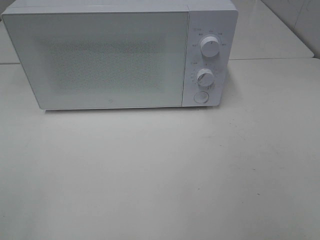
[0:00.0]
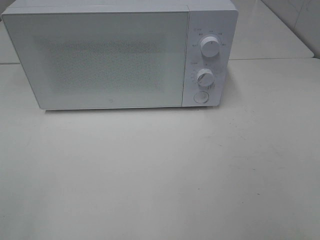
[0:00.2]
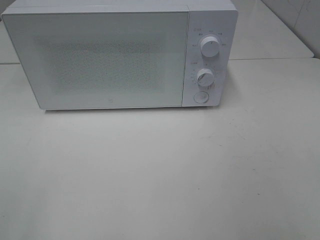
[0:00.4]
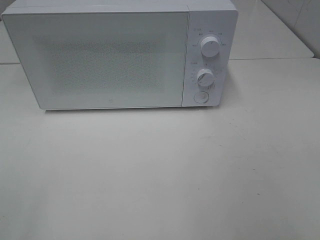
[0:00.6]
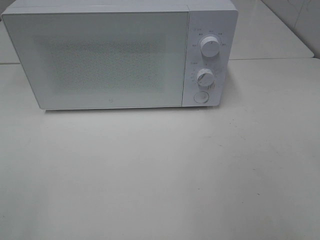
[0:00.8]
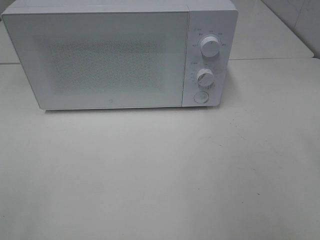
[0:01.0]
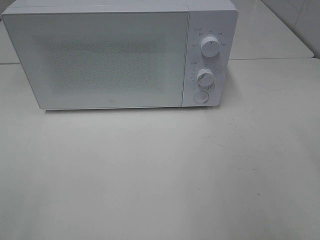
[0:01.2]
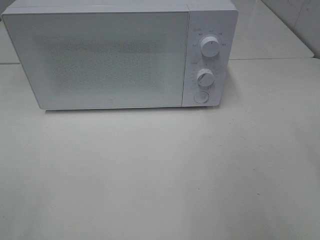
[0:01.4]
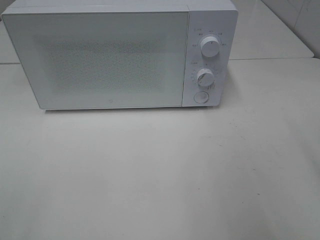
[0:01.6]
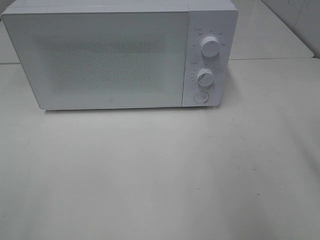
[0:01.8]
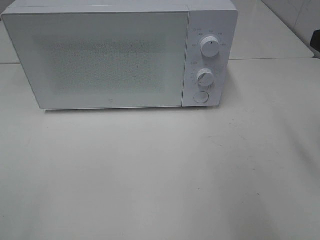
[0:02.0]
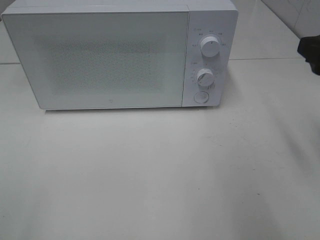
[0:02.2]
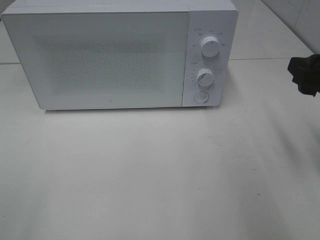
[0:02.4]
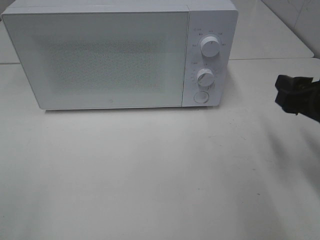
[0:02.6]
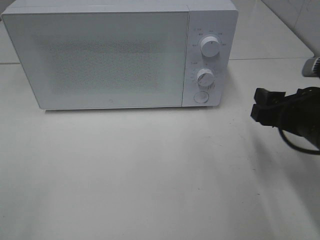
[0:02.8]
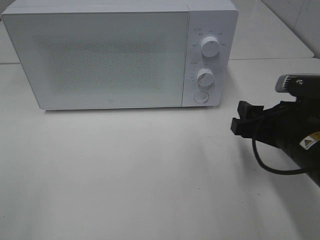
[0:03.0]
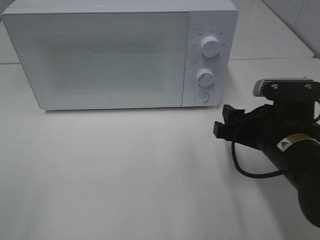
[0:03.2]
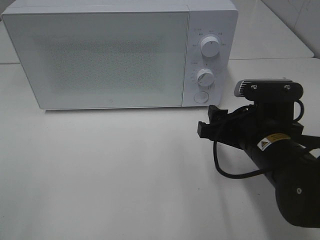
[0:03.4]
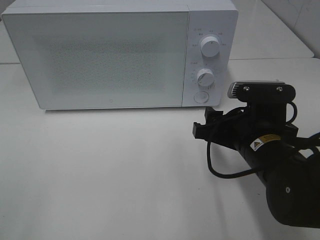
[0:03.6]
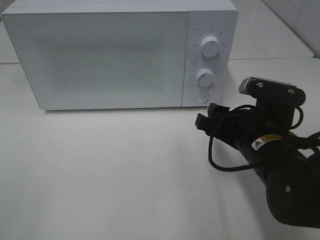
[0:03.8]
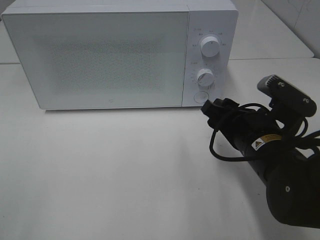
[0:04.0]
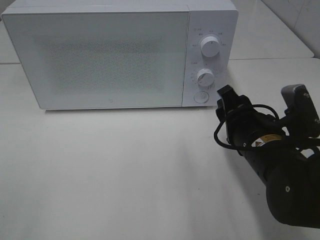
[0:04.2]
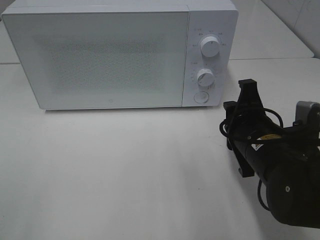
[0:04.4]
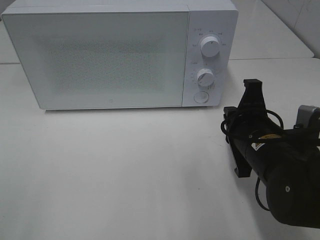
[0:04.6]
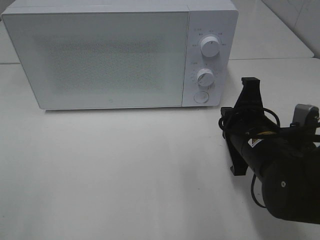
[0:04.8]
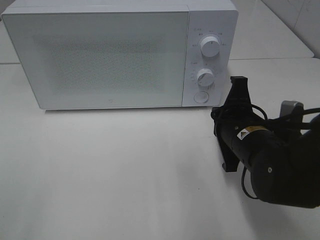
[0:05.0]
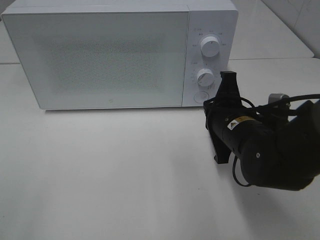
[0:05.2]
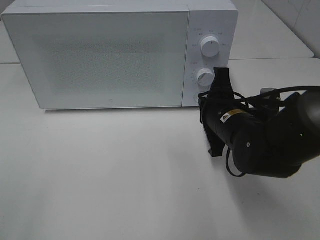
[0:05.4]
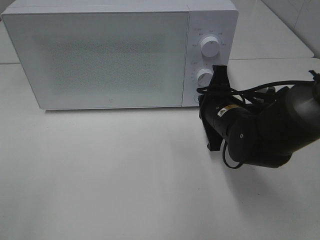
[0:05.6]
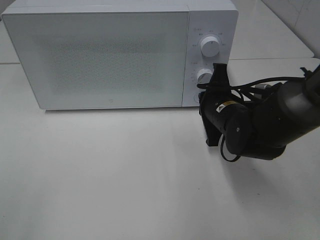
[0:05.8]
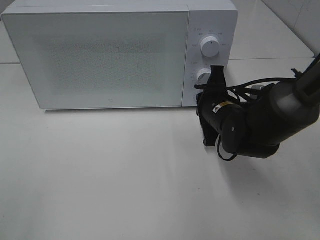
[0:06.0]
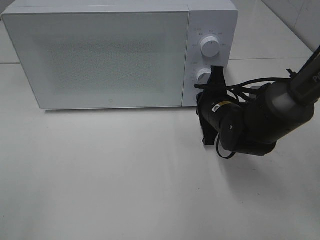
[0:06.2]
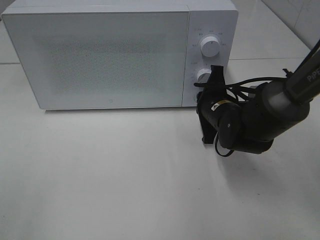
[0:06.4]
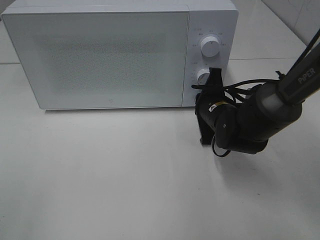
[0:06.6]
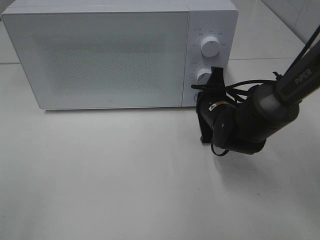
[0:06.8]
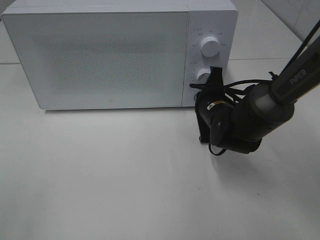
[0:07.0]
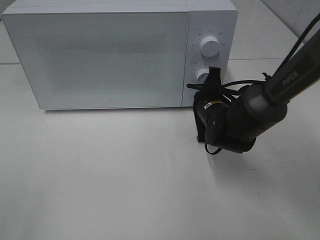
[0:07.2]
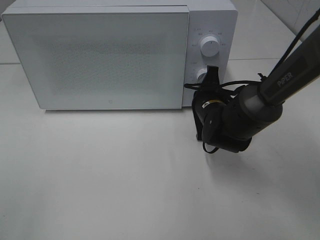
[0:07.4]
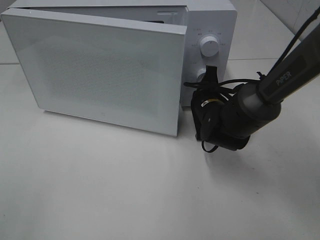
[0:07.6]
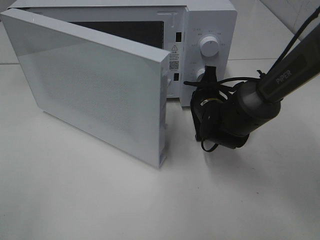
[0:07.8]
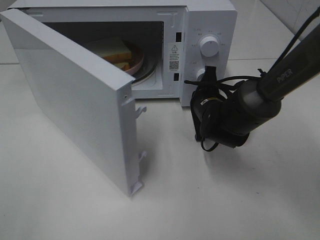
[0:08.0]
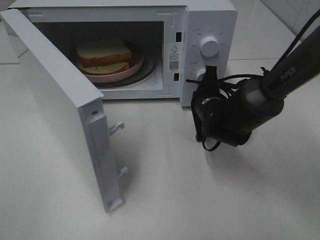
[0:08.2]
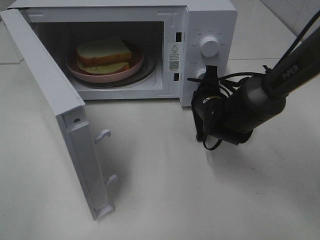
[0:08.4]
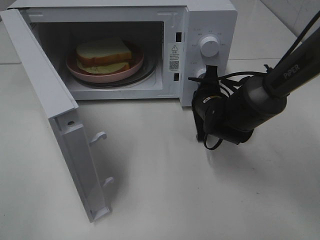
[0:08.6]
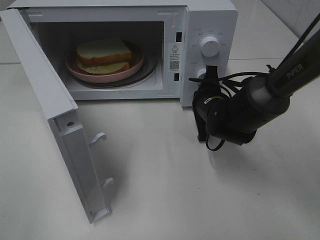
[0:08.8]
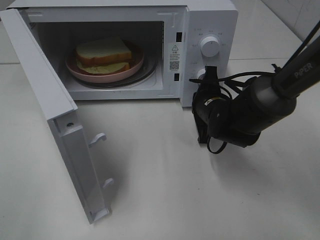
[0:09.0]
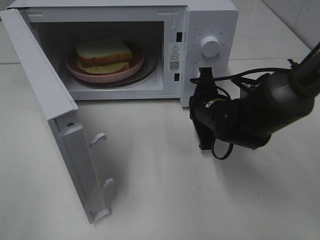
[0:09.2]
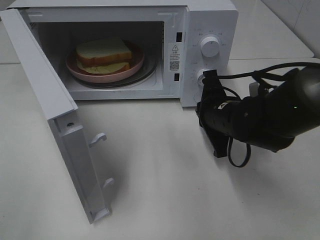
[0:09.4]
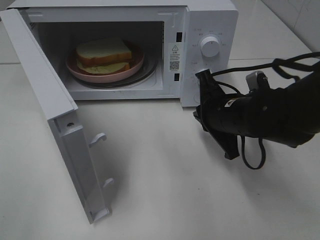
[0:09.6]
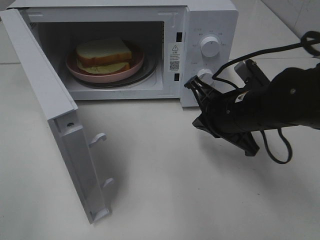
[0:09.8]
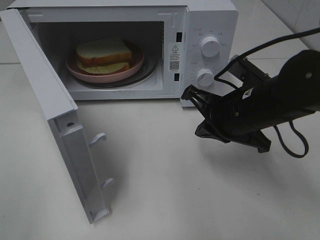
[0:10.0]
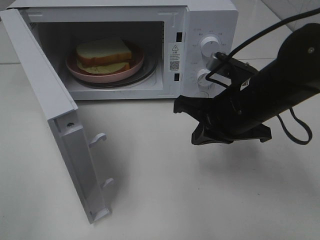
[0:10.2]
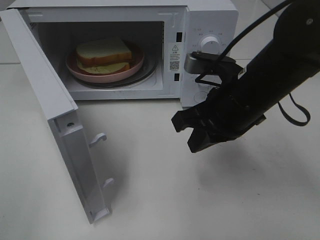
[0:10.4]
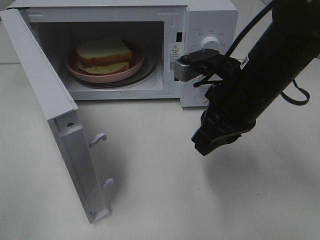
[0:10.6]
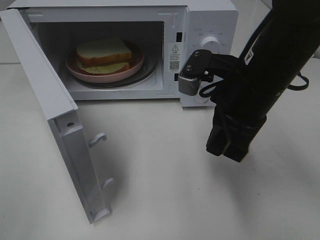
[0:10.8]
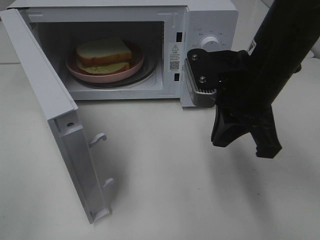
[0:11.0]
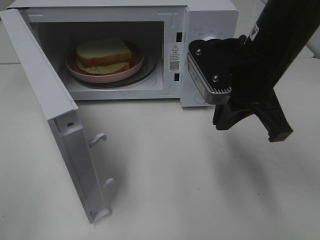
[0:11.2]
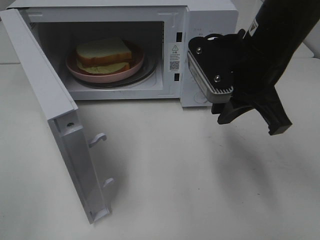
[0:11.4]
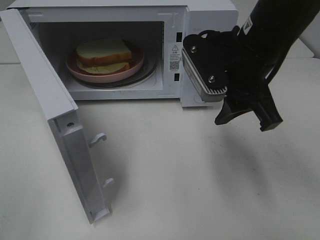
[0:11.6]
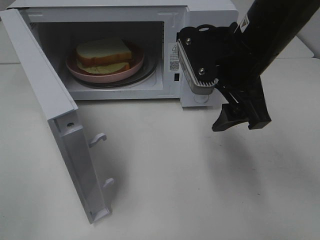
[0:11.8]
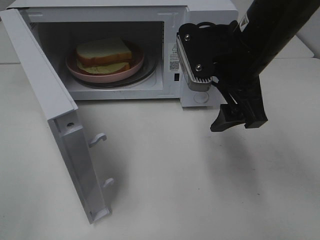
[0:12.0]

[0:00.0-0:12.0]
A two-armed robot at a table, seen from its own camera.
Task of the whole recording: Heat Sandwich.
Step, 0:00.0 to 0:09.4: Right hand: press the switch.
0:01.6 to 0:03.0: The right gripper goes roughly 20 cm downward, to the left and forward.
0:03.0 to 0:04.4: The right gripper shifts by roughly 5 cm, and closes up.
0:04.4 to 0:06.0: The right gripper is displaced forward by some 10 cm, and closes.
0:06.0 to 0:07.6: The grippers make only small movements.
0:09.0 to 0:10.4: The right gripper heads upward and backward, covering some 15 cm.
0:10.4 to 0:12.0: The right gripper moves upward, about 5 cm, and opens.

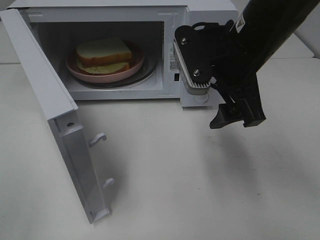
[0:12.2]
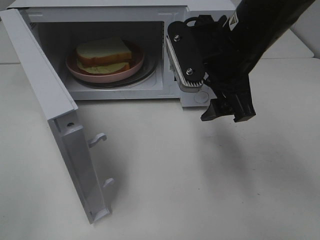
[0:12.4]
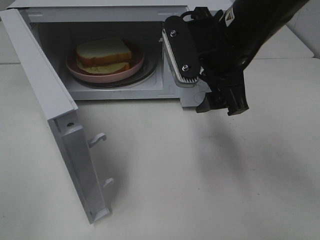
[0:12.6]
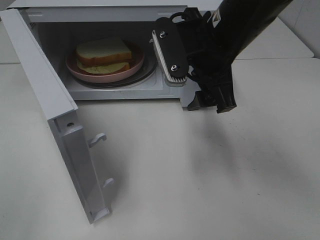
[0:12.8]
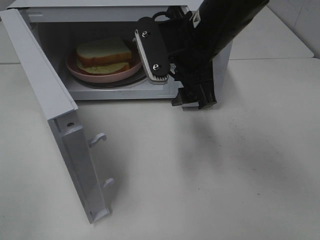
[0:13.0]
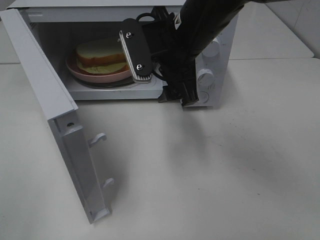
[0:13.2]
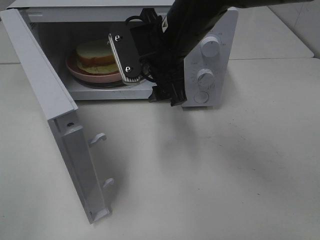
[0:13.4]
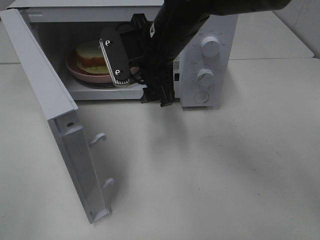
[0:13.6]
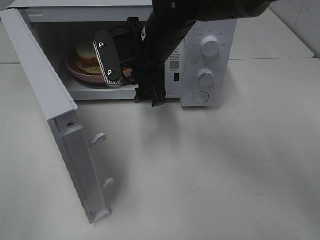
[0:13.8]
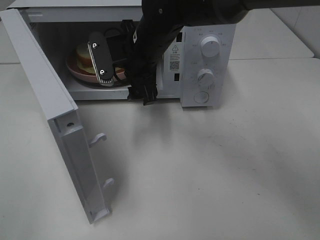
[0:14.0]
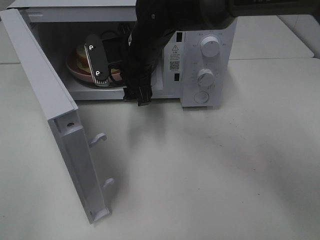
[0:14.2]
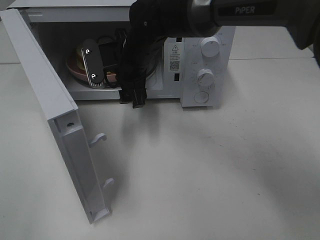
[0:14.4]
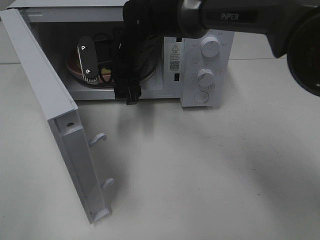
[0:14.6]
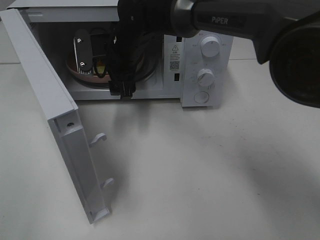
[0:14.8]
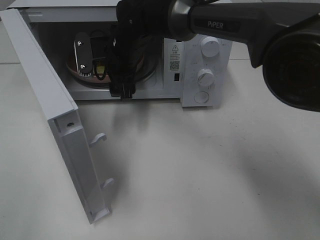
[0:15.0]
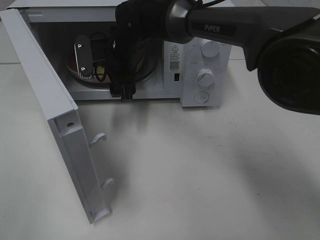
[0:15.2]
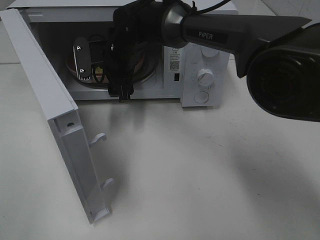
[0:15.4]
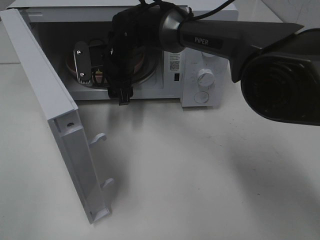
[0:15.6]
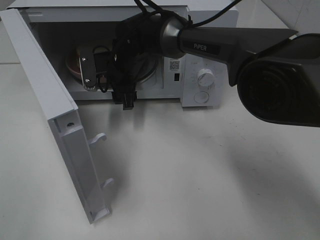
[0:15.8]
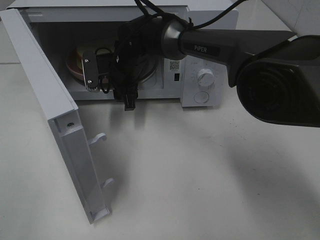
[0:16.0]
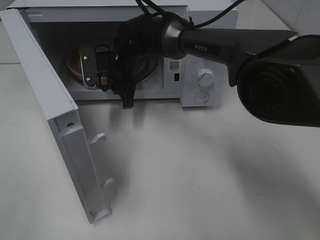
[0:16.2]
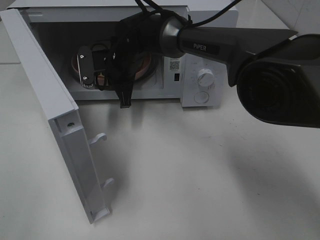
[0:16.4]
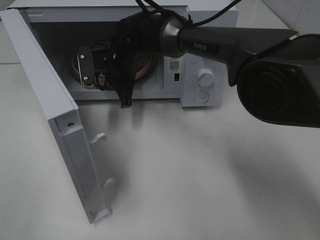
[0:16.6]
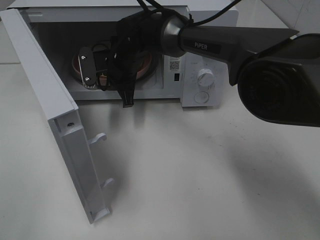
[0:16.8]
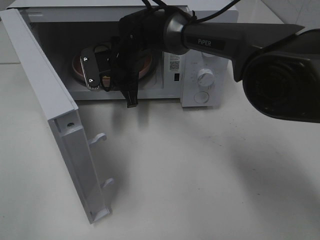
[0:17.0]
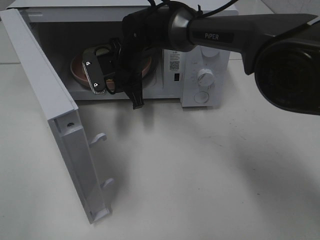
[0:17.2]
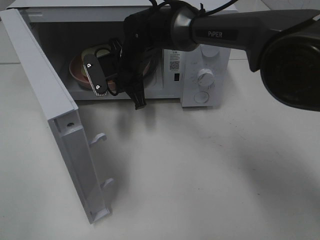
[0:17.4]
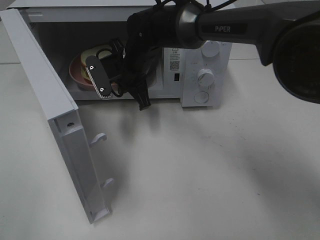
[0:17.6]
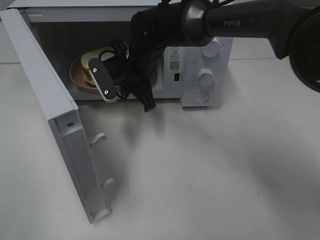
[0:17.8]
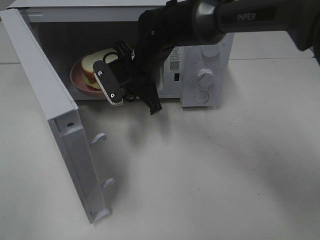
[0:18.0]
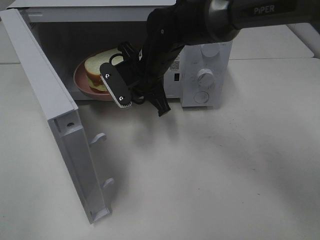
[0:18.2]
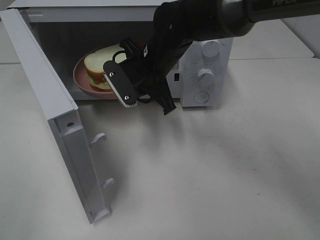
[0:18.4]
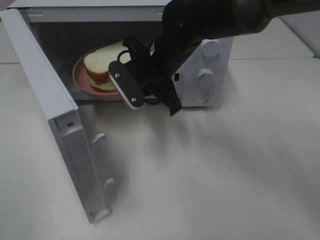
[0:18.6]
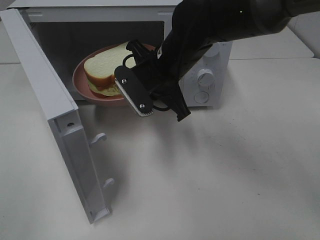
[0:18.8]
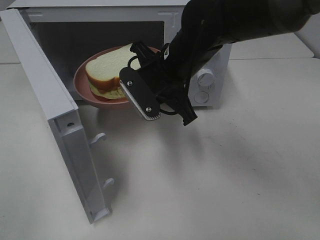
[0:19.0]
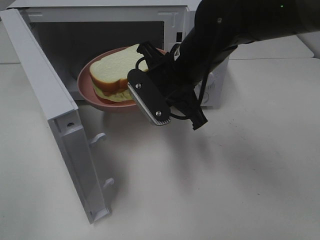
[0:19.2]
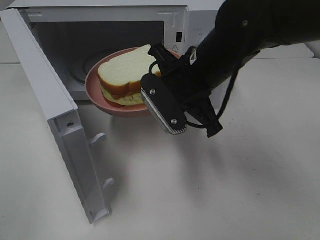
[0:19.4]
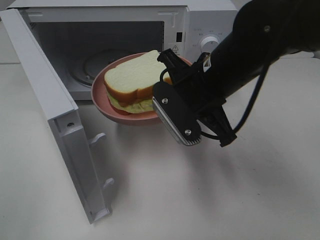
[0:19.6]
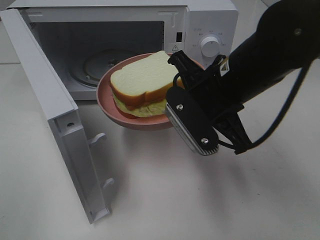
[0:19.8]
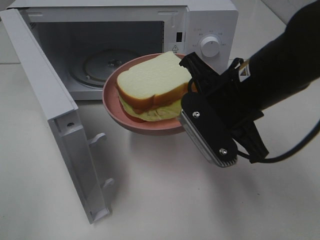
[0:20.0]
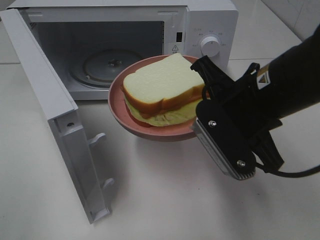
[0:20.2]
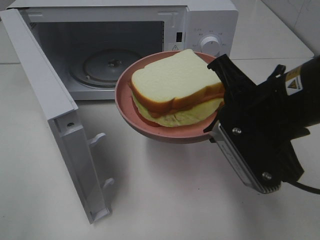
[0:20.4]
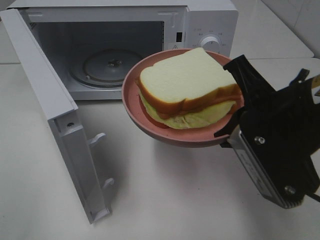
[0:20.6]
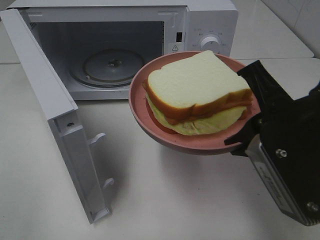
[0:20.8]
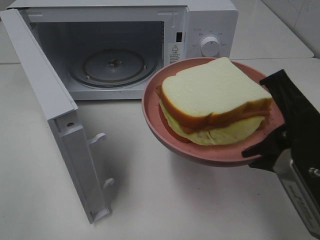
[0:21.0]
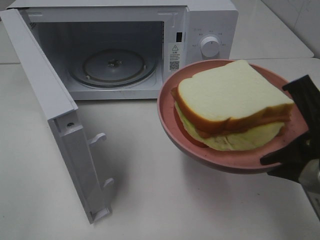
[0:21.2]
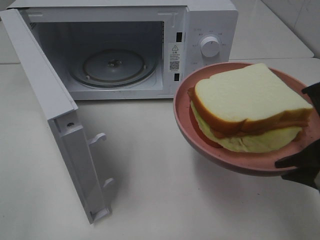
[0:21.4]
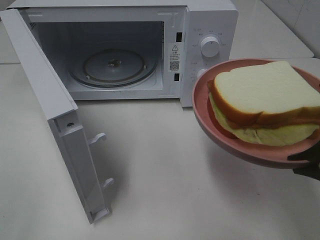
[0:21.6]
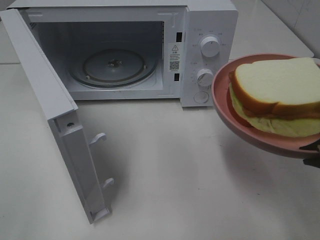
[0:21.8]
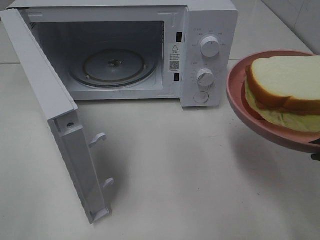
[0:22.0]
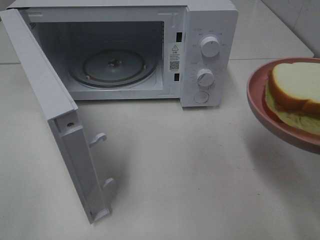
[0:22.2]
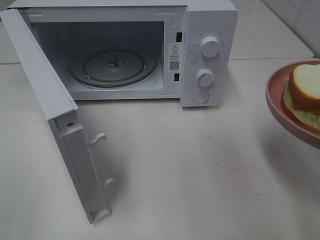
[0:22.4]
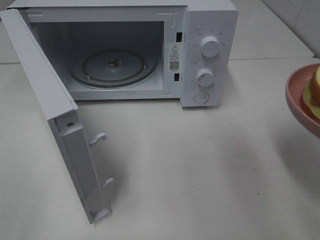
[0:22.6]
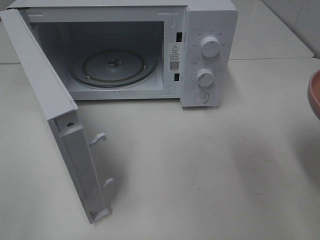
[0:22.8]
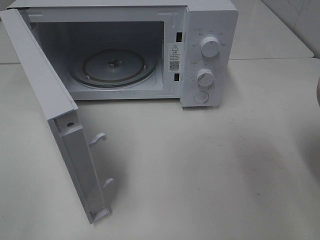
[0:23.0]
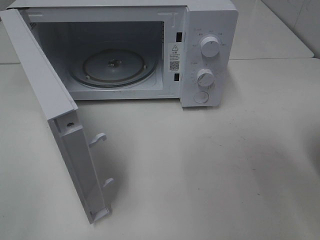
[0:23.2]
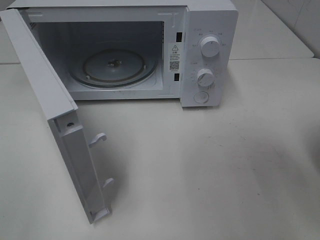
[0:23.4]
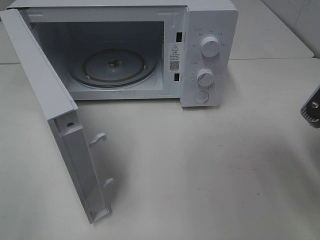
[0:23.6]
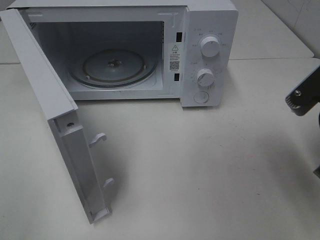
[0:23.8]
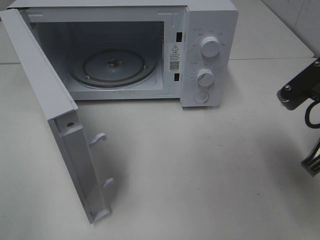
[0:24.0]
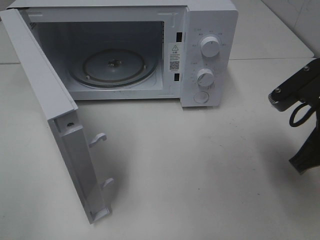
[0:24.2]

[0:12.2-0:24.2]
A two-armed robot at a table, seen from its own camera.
Task of the whole recording: Heat Sandwich.
Step, 0:12.2 to 0:16.2: Right hand: grab the plate with the sandwich.
0:12.2 to 0:13.8: The right gripper heads to the left and forward, covering about 15 cm.
0:13.8 to 0:15.2: The right gripper shifts roughly 10 cm forward and to the left.
0:15.2 to 0:16.6: The right gripper closes.
0:16.6 to 0:18.2: The right gripper shifts some 10 cm backward and to the right.
0:18.2 to 0:19.8: The right gripper heads backward and to the right, covering approximately 15 cm.
0:19.8 to 0:21.2: The right gripper moves backward and to the right, some 15 cm.
0:21.2 to 0:22.6: The right gripper travels to the right by roughly 5 cm.
0:22.6 to 0:24.2: The right gripper goes roughly 10 cm forward.
